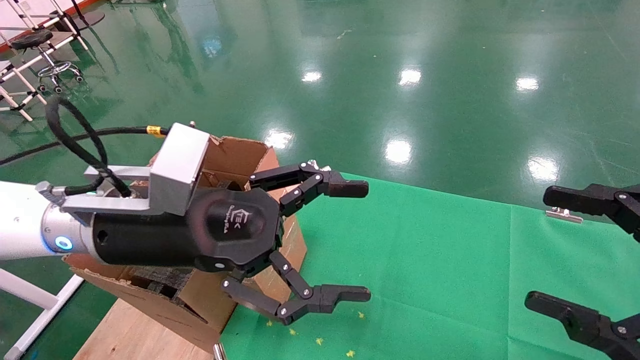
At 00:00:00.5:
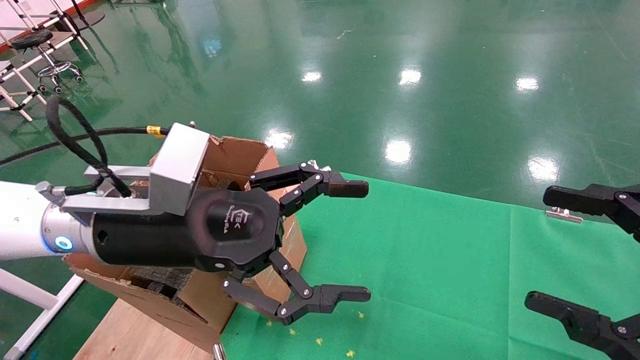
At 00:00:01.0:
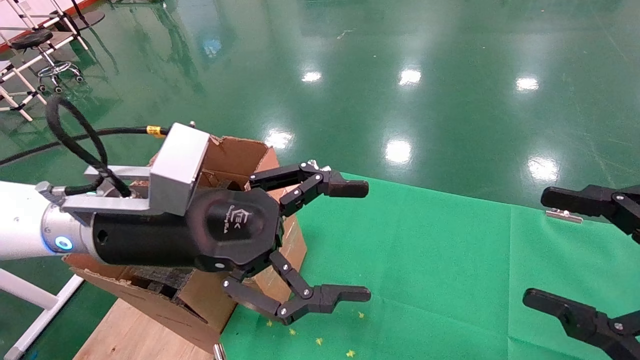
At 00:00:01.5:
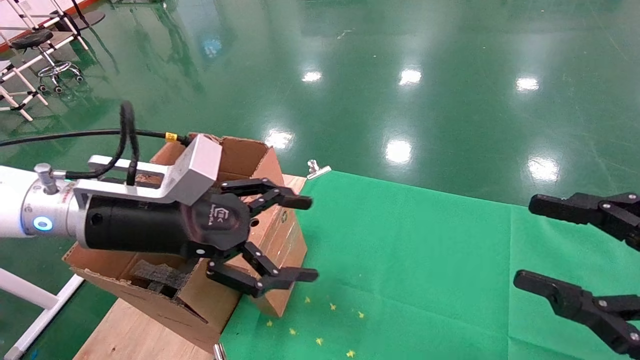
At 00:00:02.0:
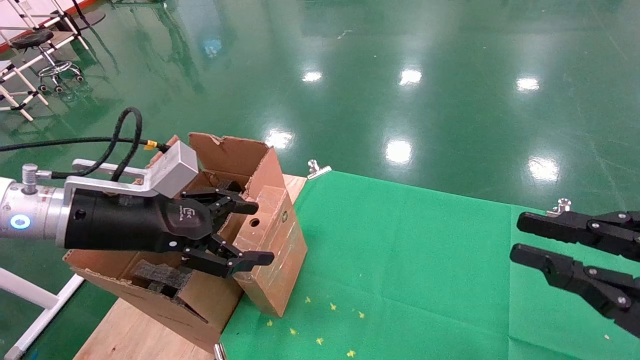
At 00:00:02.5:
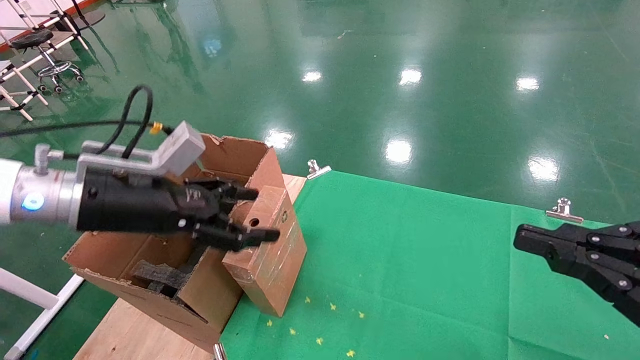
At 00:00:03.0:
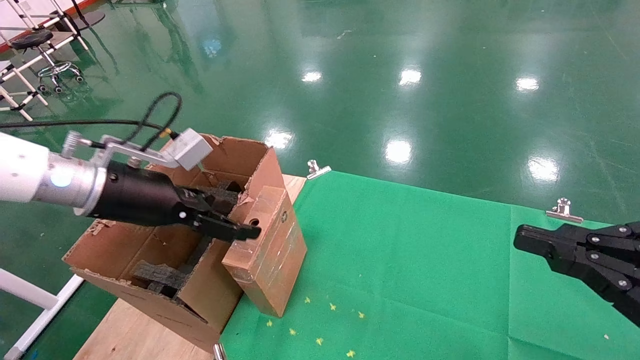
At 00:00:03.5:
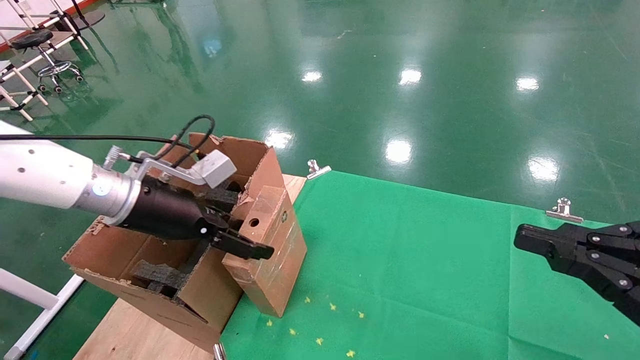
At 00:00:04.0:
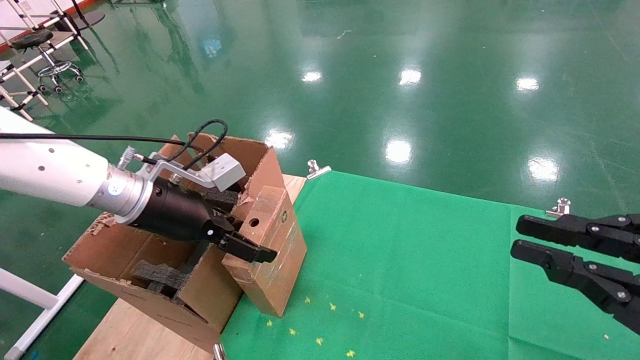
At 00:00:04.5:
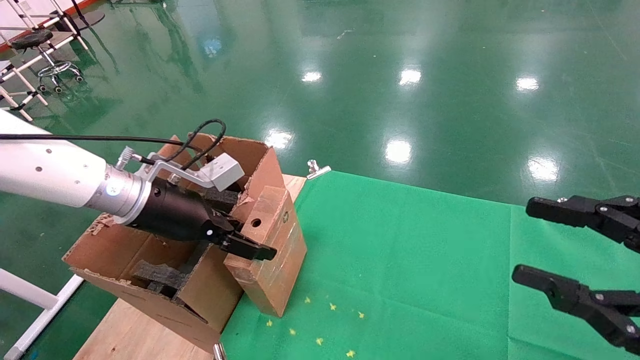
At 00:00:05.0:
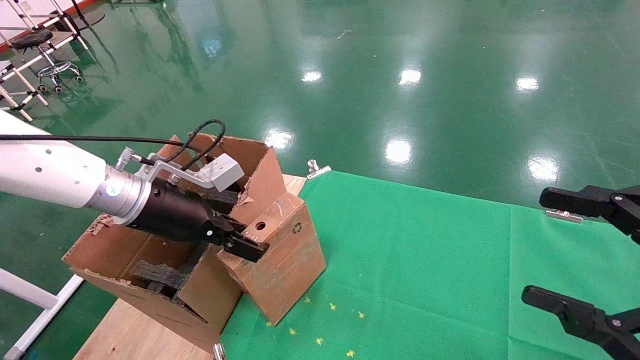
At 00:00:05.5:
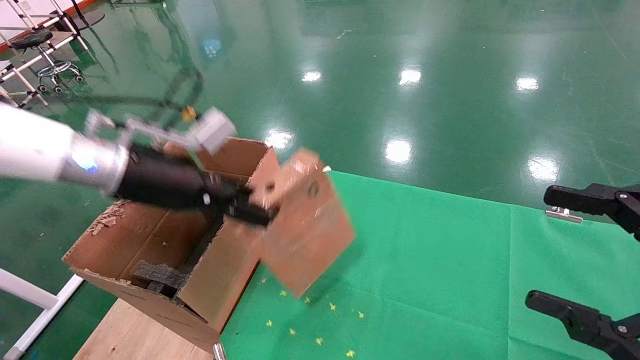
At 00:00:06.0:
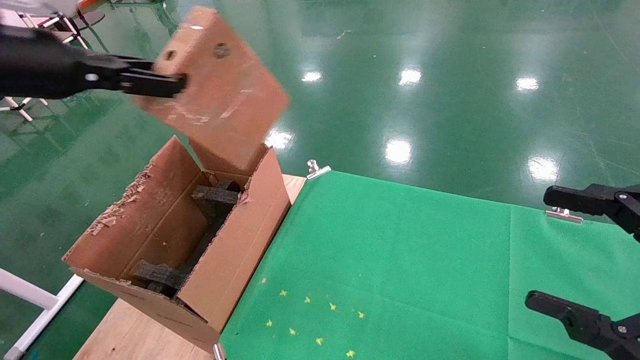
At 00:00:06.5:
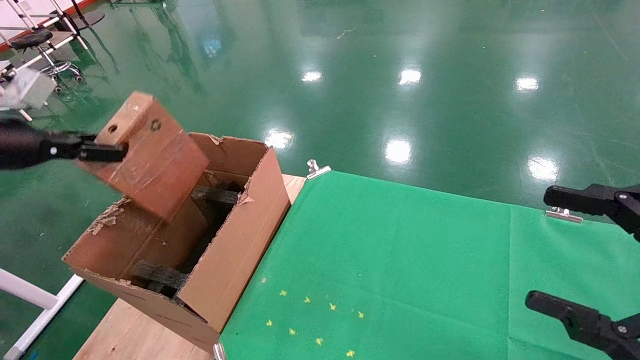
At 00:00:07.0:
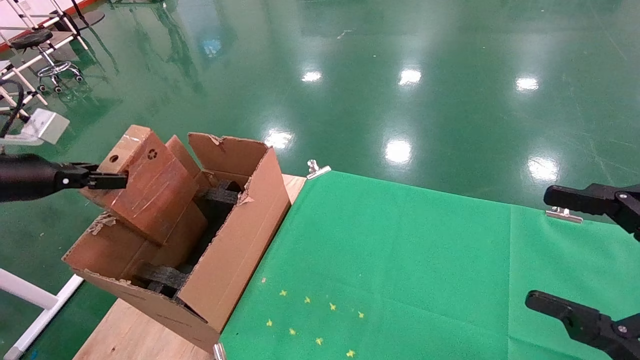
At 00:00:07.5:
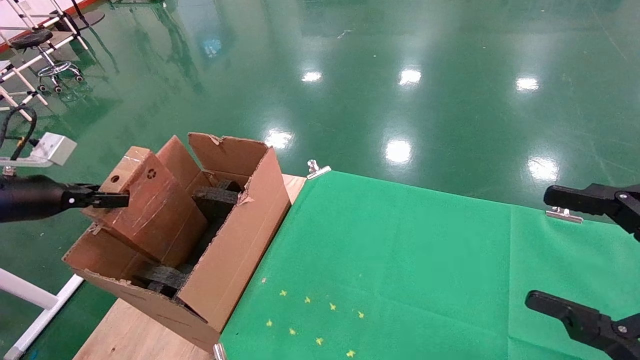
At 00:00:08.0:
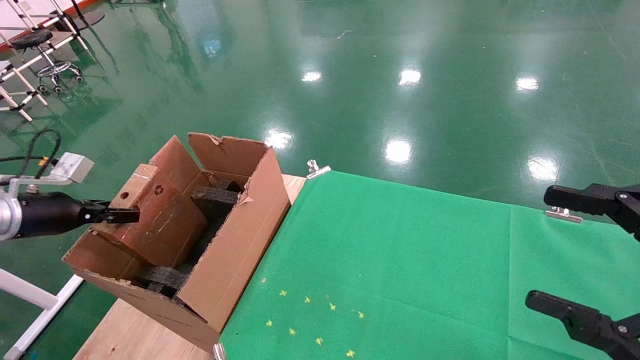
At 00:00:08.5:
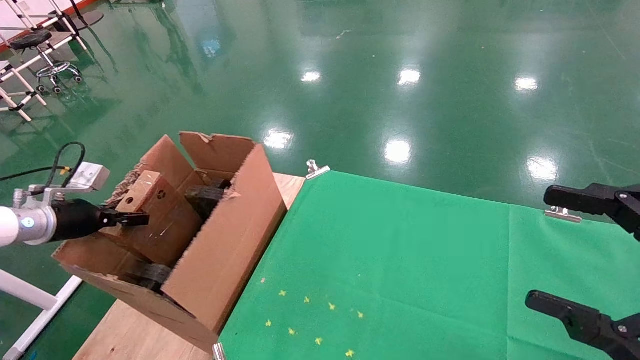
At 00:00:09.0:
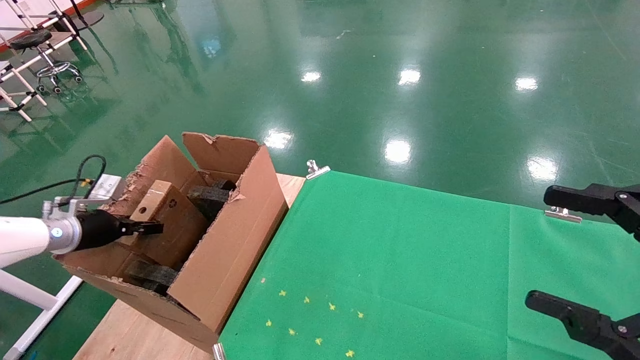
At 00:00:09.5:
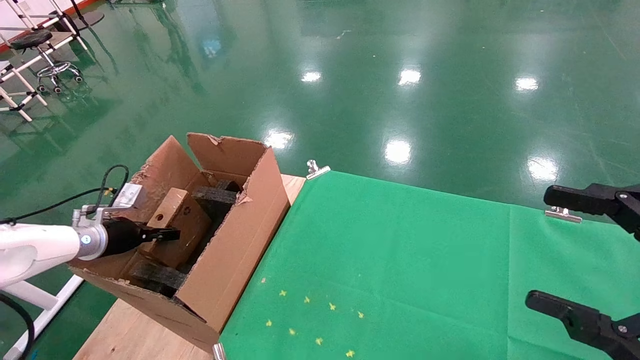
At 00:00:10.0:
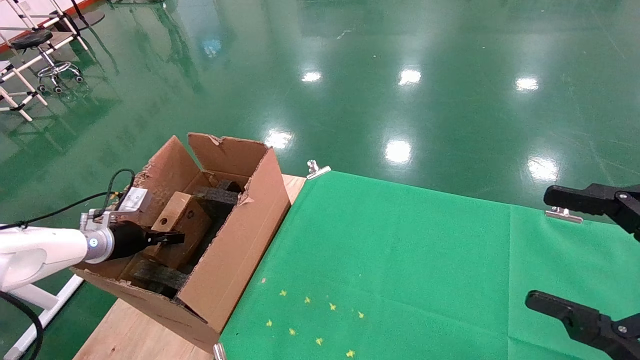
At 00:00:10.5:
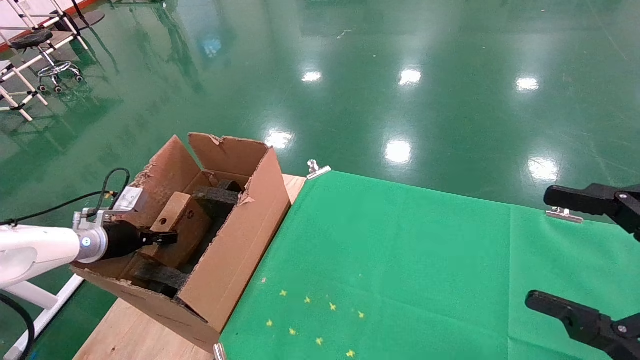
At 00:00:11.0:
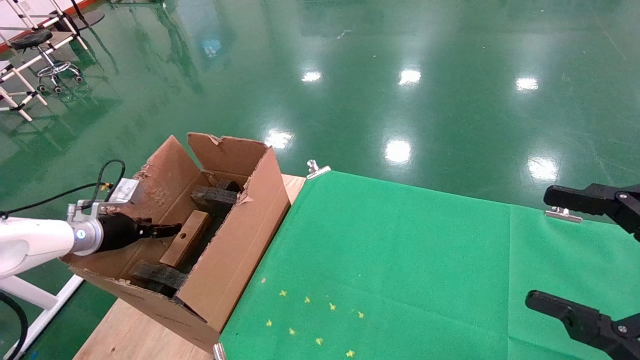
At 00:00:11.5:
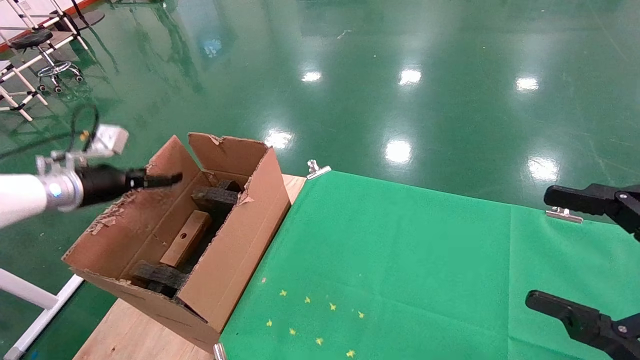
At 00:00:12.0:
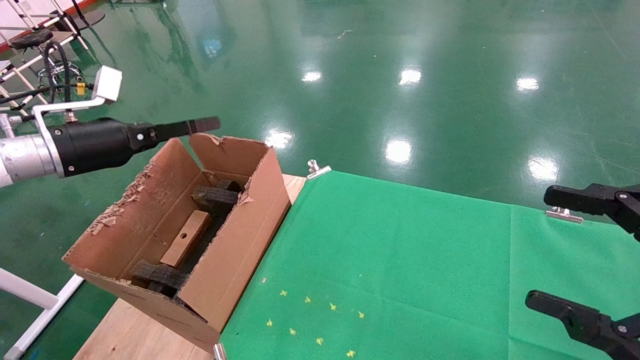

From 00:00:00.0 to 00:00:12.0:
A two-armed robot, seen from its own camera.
Task of the whole recording: using a robotic arm to pick up a cardboard box and palace it the carton.
Step, from 00:00:01.5 to 00:00:04.5: Pick up the mouse and the power cord paper box.
Step, from 00:00:05.0 to 00:00:11.5: Place the mouse and the power cord paper box into the container.
From 00:00:00.0 to 00:00:02.0: The left gripper travels to the left by about 10 cm. Meanwhile the right gripper closes up.
From 00:00:02.0 to 00:00:04.0: The left gripper heads forward, covering some 5 cm.
From 00:00:04.0 to 00:00:06.0: The right gripper opens up. The left gripper travels upward and to the left by about 20 cm, and closes up.
From 00:00:06.0 to 00:00:08.0: The left gripper shifts some 25 cm downward and to the left.
From 00:00:08.0 to 00:00:10.0: The left gripper goes roughly 15 cm downward and forward.
From 00:00:10.0 to 00:00:12.0: The left gripper goes about 20 cm upward, and opens.

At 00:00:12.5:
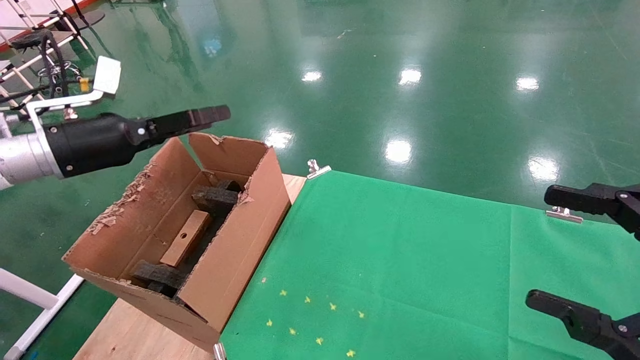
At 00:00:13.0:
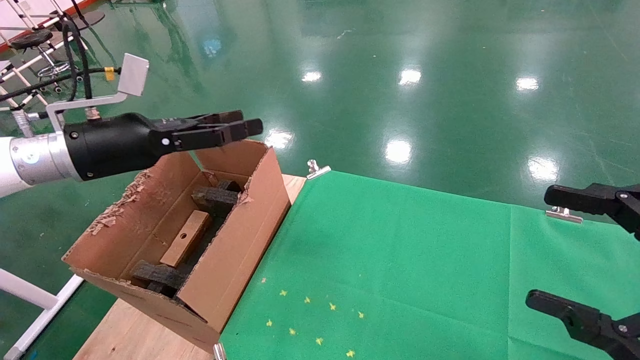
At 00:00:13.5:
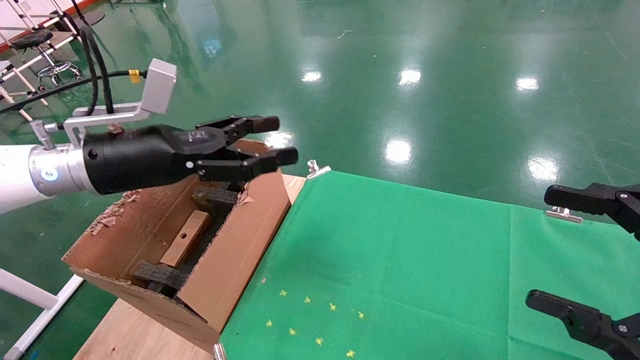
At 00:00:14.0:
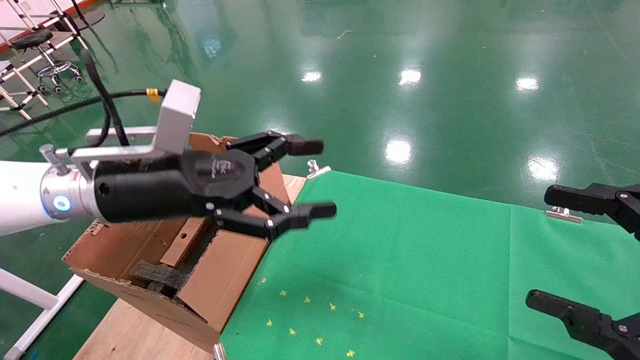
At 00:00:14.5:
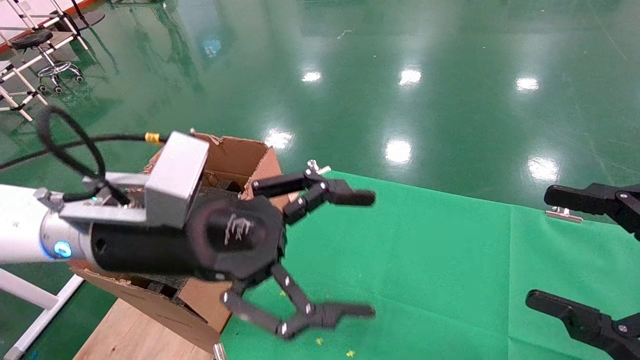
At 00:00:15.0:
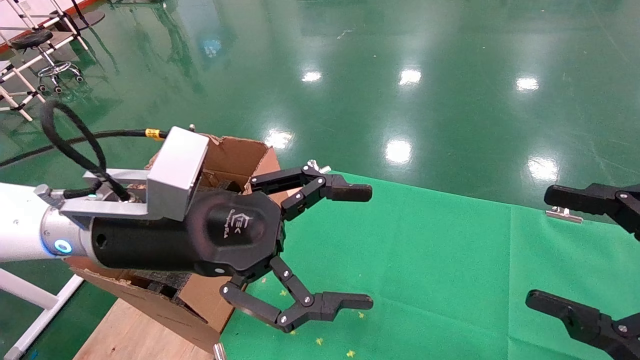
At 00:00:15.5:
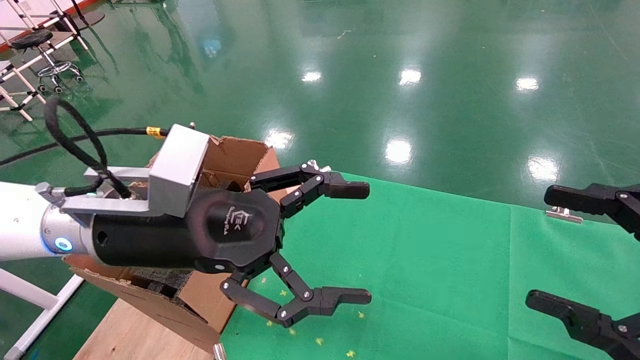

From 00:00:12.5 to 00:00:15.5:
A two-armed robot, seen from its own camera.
Task of the whole recording: using a robotic arm to pick up a cardboard box and palace it the carton.
From 00:00:12.5 to 00:00:14.0: The left gripper travels to the right by about 15 cm.
From 00:00:14.0 to 00:00:15.5: The left gripper shifts by about 5 cm.
